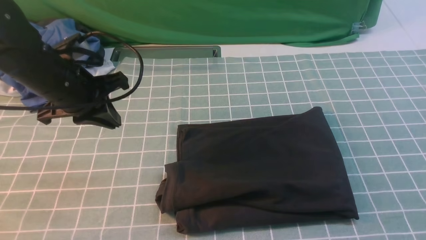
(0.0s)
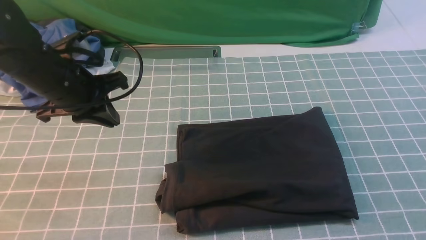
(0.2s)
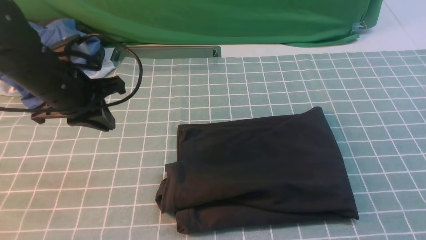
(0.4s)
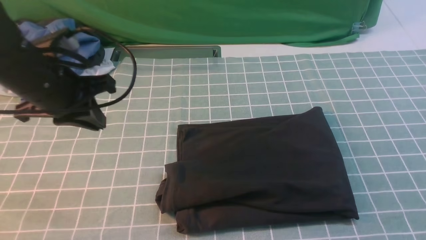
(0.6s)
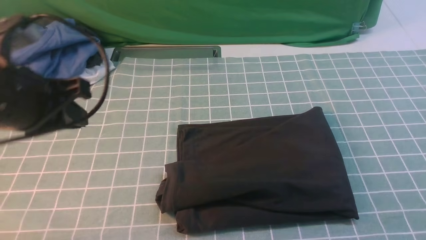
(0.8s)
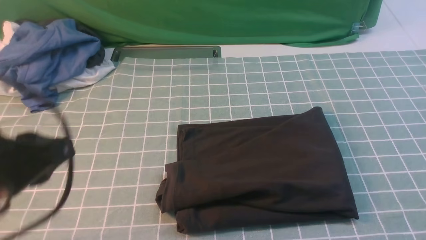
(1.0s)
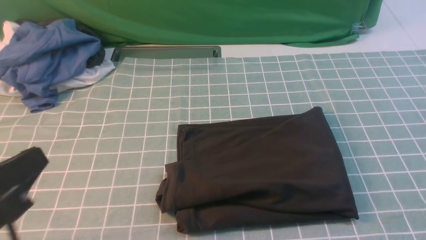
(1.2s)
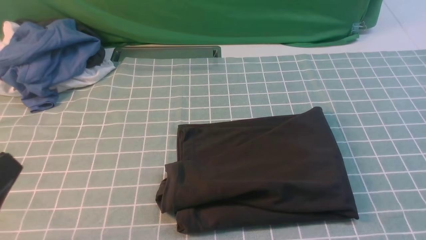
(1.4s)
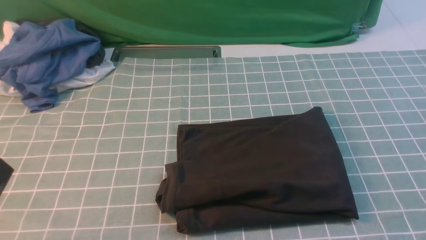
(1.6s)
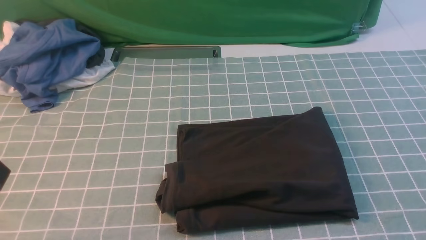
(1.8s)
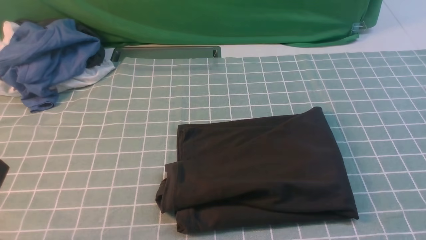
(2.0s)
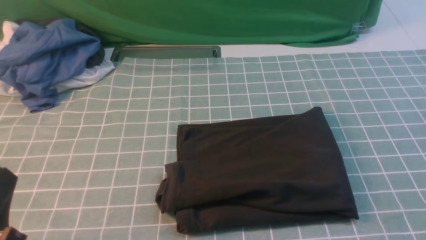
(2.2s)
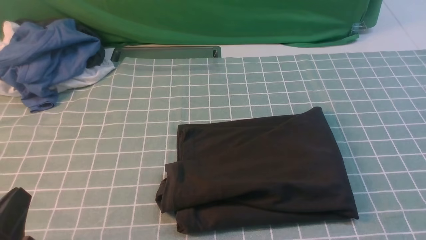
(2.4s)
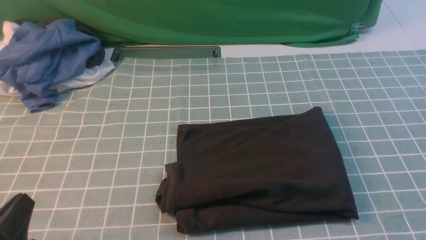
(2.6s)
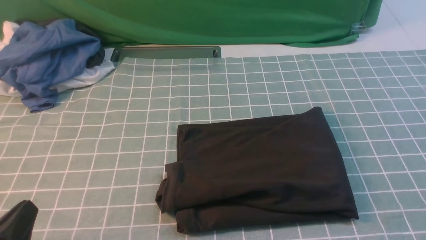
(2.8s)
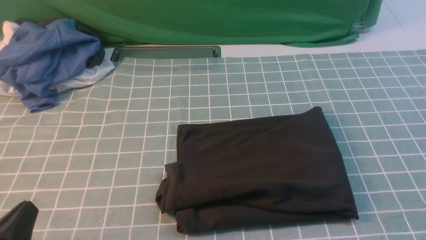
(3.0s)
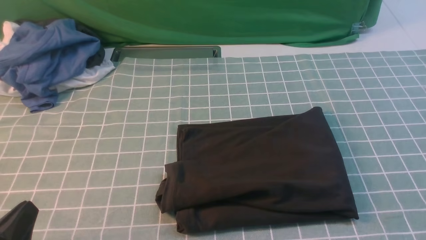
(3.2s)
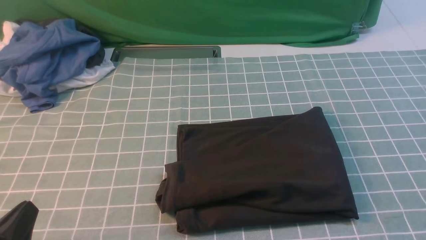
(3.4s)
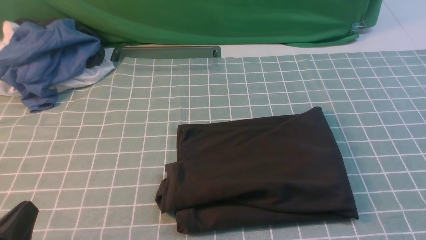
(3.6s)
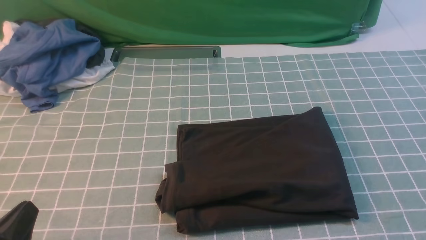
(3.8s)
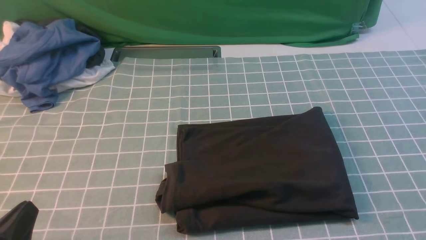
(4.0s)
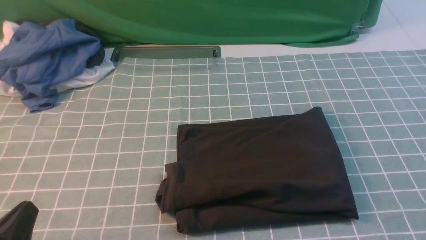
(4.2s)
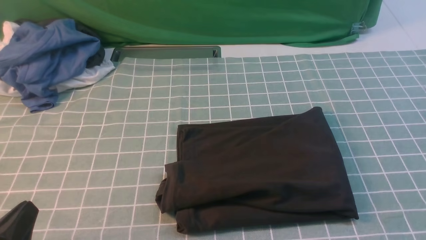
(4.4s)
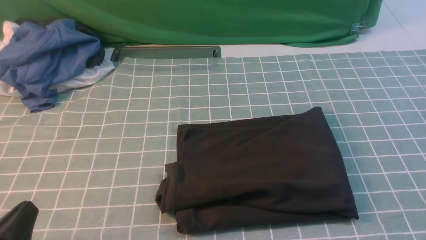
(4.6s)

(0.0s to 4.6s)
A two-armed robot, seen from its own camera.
0.0s - 1.6s: The left gripper travels backward by approximately 30 cm.
1.6s - 3.0s: The left gripper shifts approximately 10 cm downward.
3.0s - 4.6s: Neither gripper changes place.
